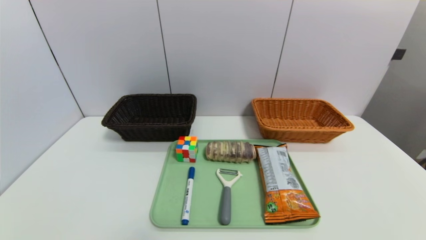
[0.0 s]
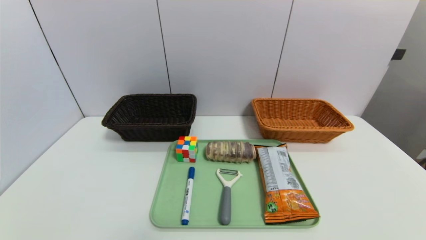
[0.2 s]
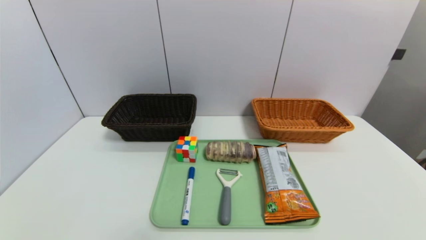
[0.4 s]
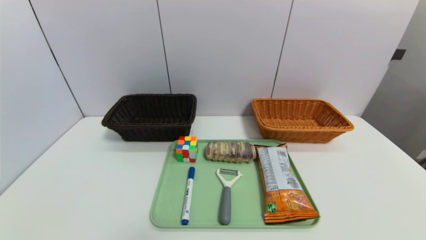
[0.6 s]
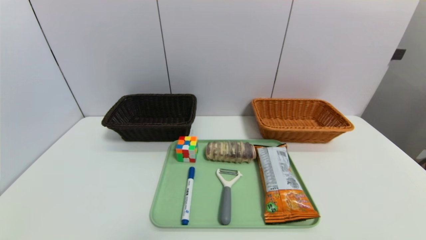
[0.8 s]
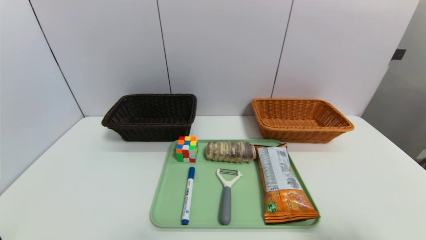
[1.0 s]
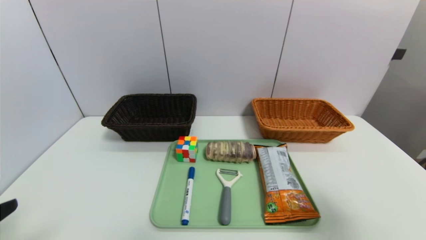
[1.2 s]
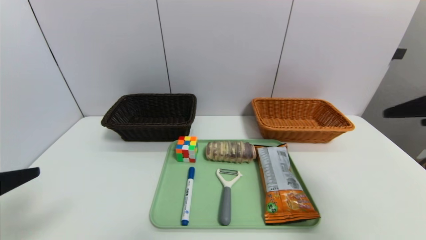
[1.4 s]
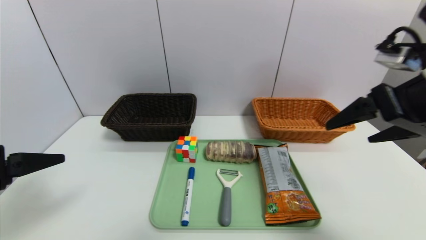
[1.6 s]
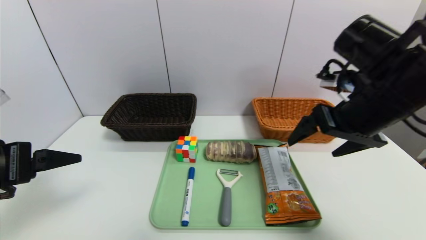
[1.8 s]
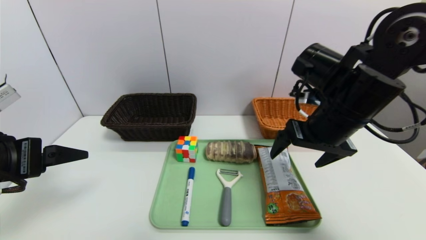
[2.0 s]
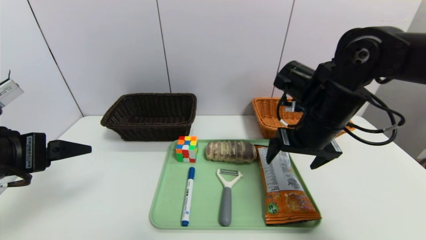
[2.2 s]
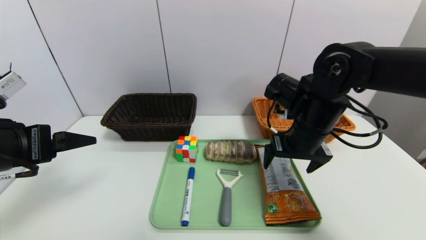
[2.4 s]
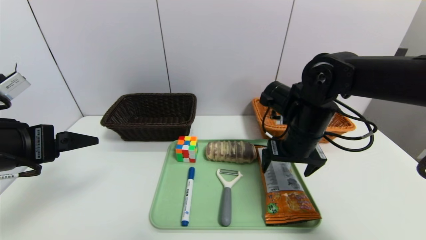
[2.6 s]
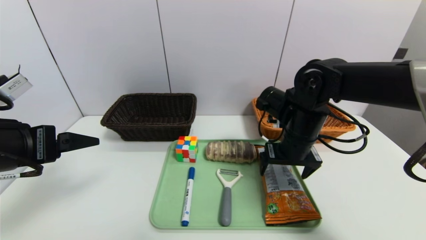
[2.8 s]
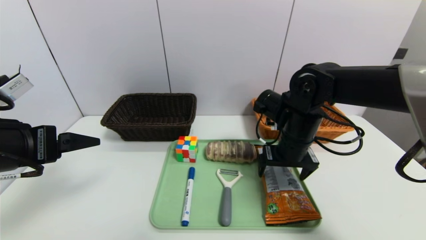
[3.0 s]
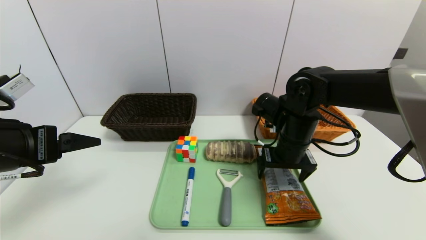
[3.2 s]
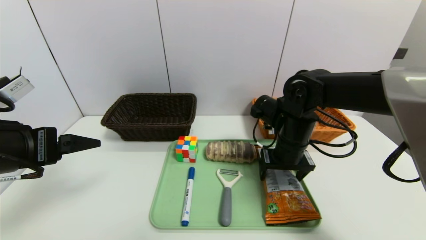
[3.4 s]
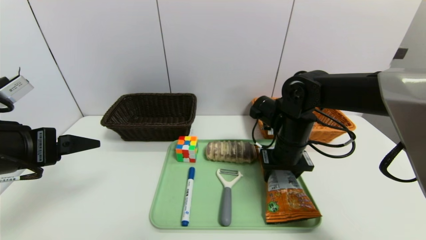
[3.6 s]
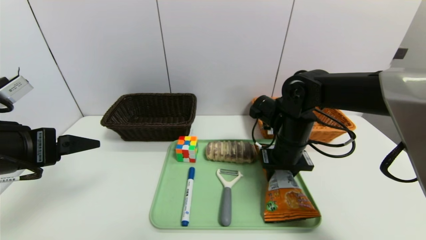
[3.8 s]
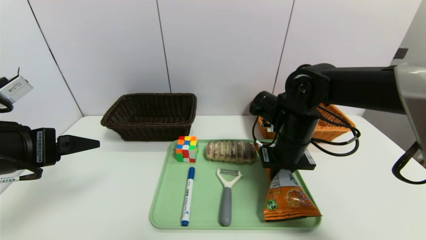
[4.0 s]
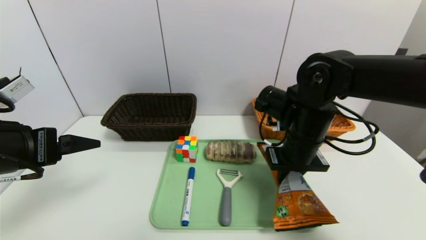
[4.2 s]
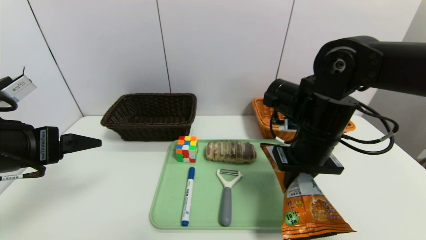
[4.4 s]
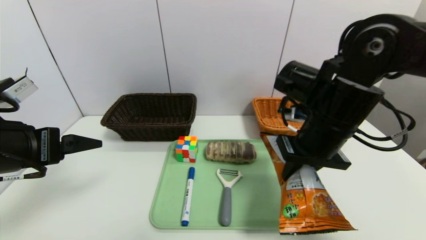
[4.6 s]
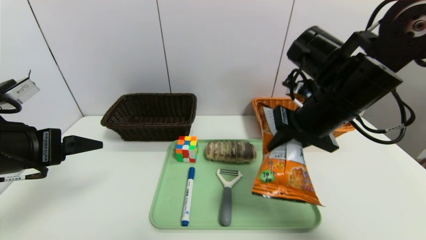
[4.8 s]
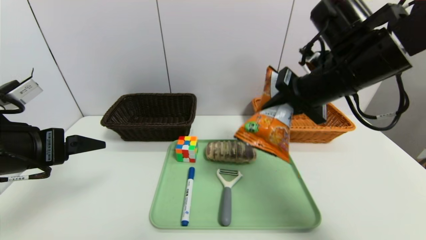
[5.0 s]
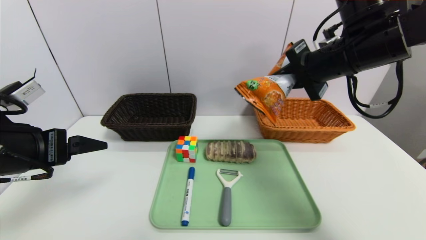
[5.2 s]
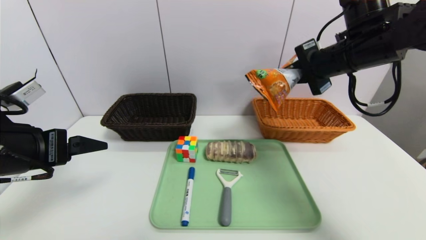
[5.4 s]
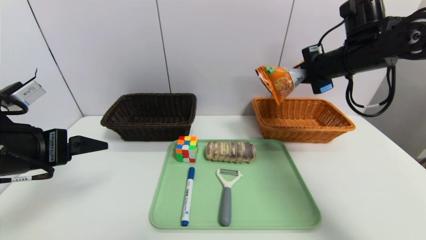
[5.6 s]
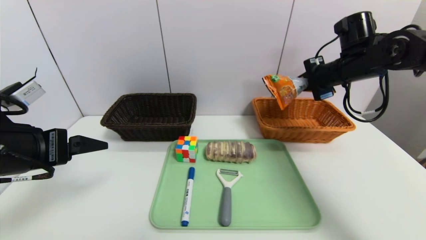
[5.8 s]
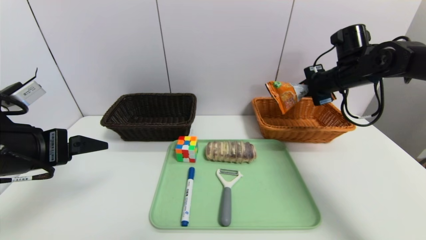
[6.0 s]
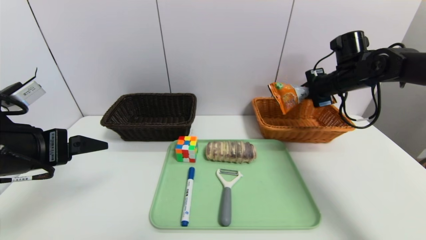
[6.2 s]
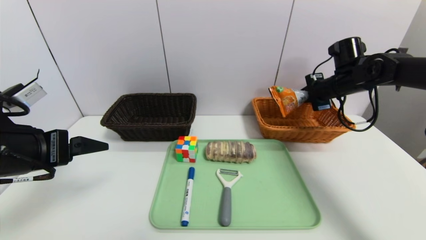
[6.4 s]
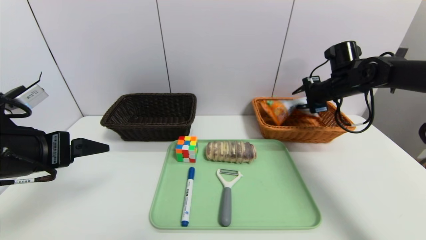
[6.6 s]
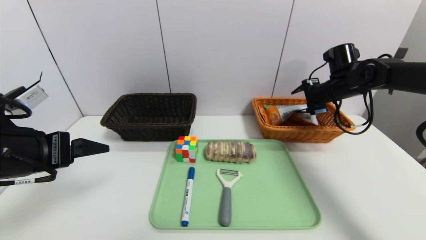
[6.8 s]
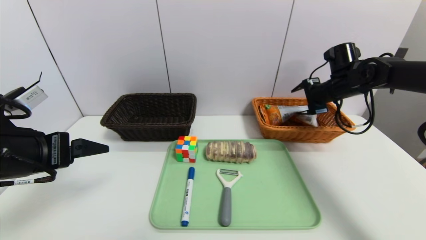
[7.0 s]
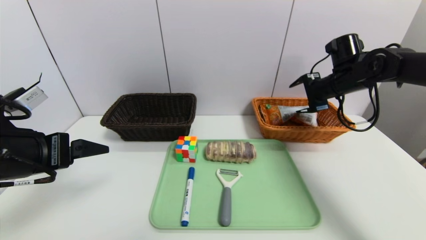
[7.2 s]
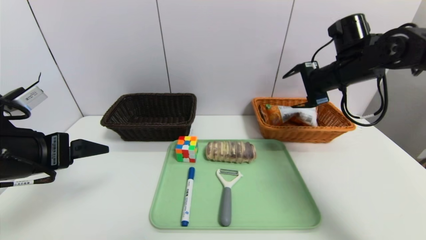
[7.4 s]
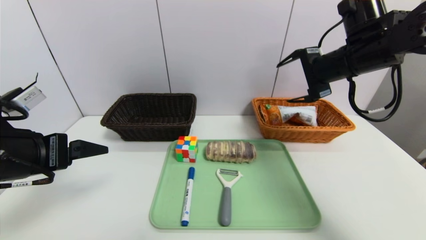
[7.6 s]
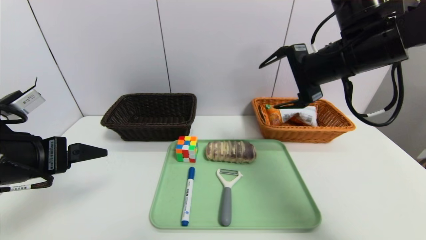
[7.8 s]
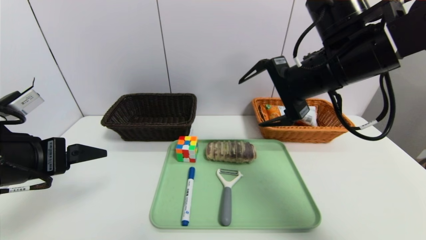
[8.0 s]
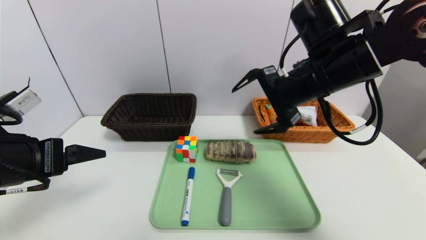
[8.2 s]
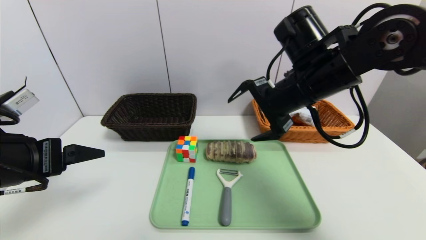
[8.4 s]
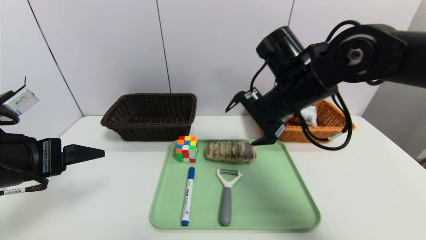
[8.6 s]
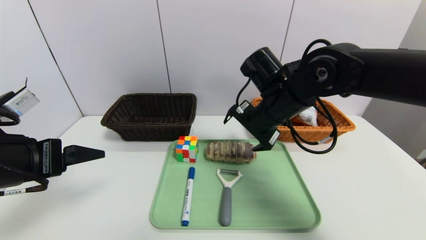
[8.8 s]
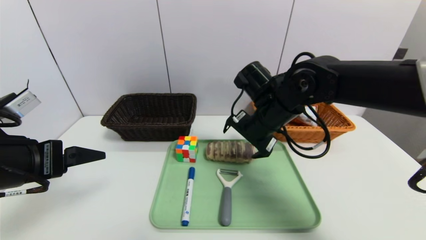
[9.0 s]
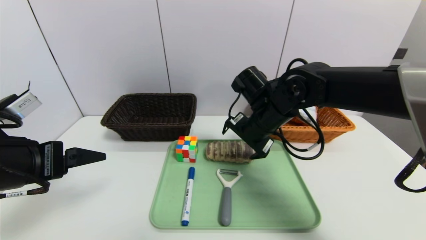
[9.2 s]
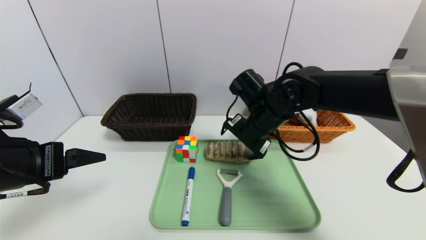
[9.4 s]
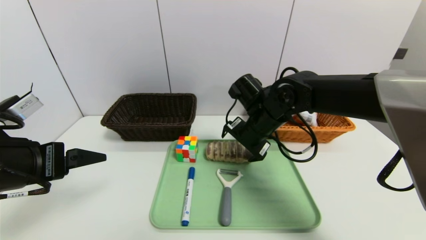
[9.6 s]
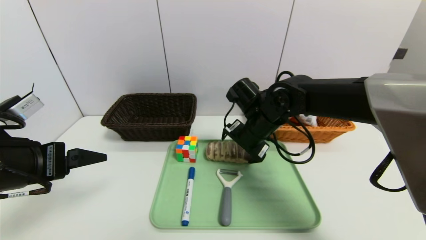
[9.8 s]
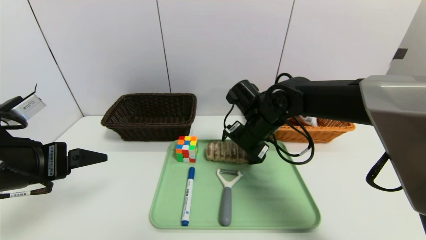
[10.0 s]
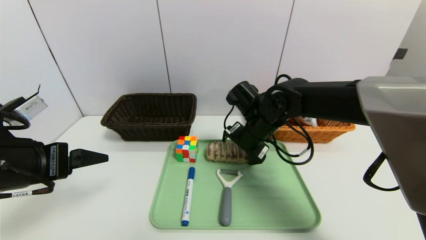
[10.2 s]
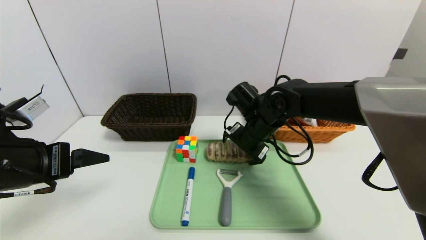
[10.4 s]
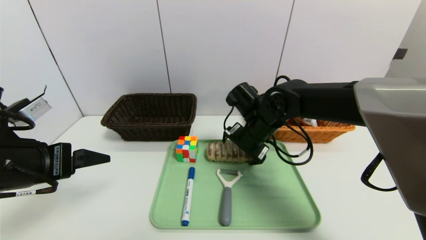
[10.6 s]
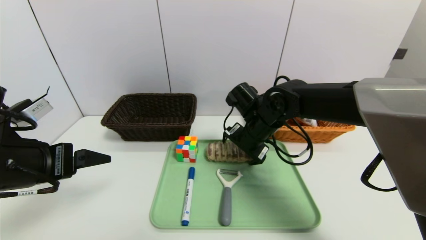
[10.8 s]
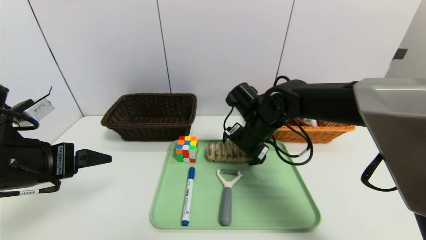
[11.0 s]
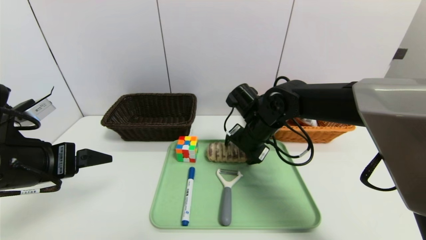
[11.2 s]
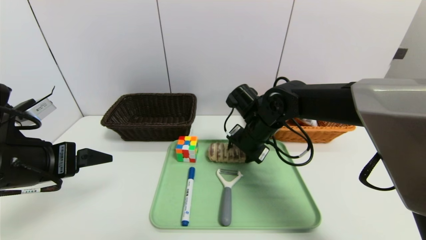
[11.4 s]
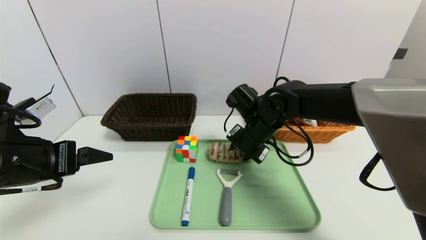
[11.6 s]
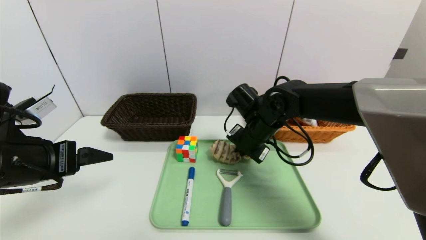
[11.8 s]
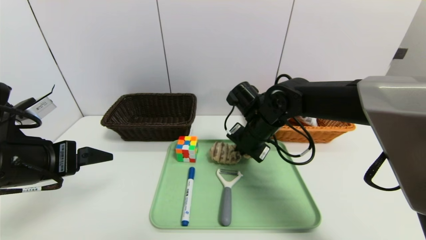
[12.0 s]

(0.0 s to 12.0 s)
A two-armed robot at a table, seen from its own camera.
Task of the whole recording: place the food in the right basket with the right gripper, and place the non food items in the left basket with the left gripper.
Step, 0.0 s - 7.2 s: Grasp the cookie and put it in the right basket.
0.0 s - 1.6 s: Both grippers move upward and forward, approximately 30 cm.
1.6 s - 3.0 s: The left gripper goes some 5 cm forward, while the right gripper moves downward, forward and to the left, approximately 20 cm.
3.0 s - 4.4 s: The right gripper moves approximately 5 cm, and closes.
4.4 s - 6.0 s: The right gripper is displaced forward and to the right by roughly 20 cm.
6.0 s - 7.6 s: The right gripper shifts about 10 cm backward, to the left and upward, and opens its fingers.
7.6 s - 9.0 s: The right gripper goes approximately 15 cm to the left and downward.
9.0 s - 10.4 s: The right gripper moves some 5 cm.
10.4 s - 12.0 s: The right gripper closes up.

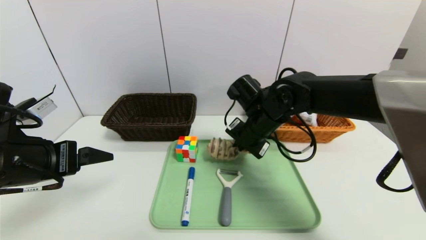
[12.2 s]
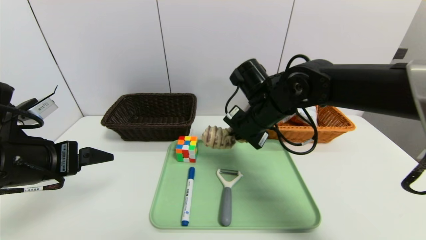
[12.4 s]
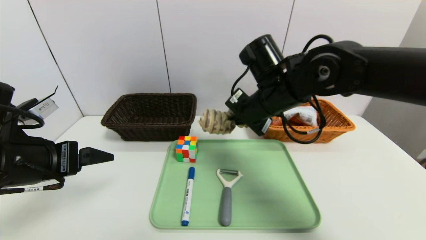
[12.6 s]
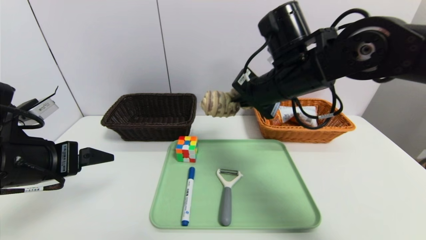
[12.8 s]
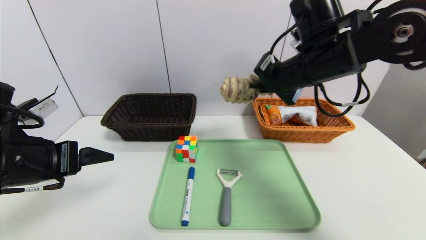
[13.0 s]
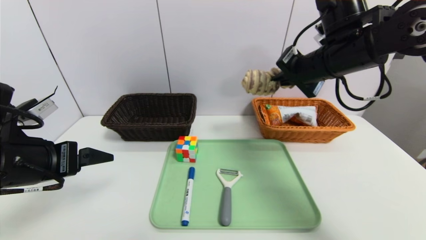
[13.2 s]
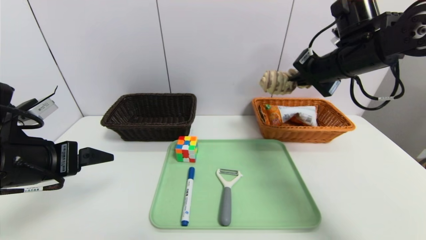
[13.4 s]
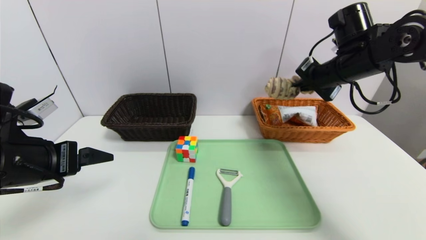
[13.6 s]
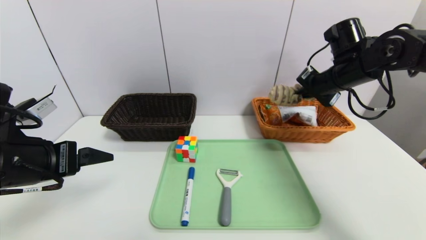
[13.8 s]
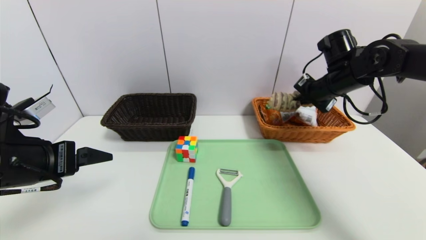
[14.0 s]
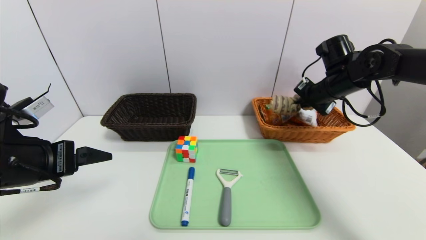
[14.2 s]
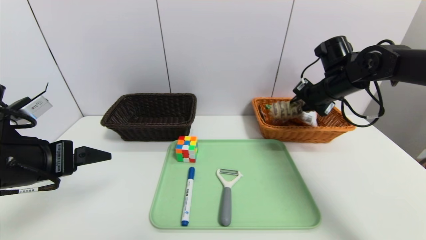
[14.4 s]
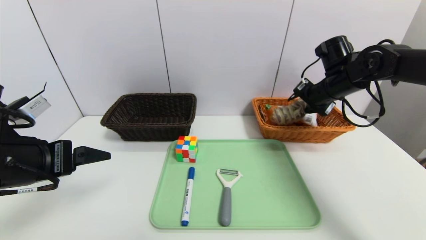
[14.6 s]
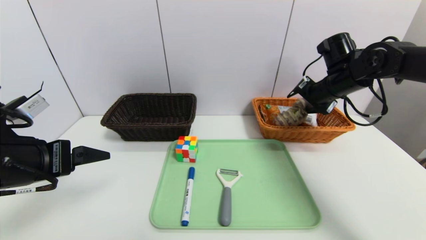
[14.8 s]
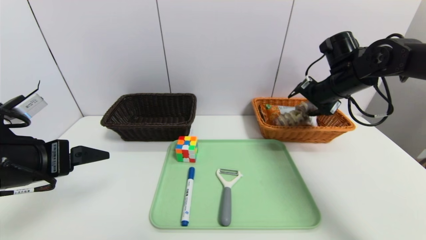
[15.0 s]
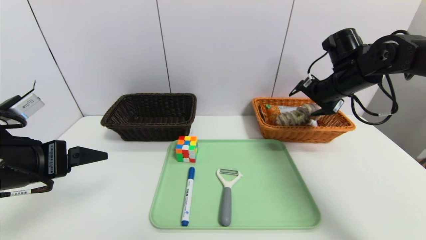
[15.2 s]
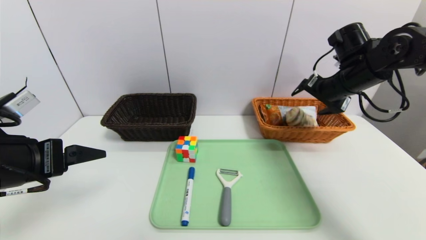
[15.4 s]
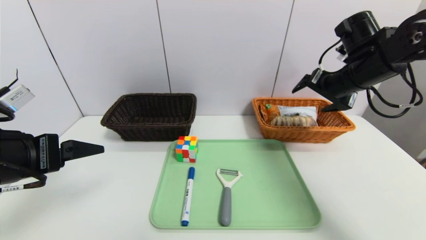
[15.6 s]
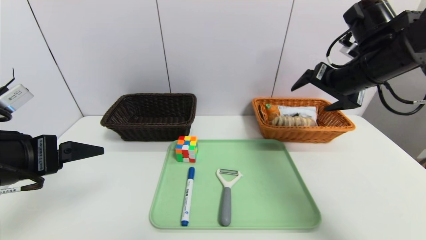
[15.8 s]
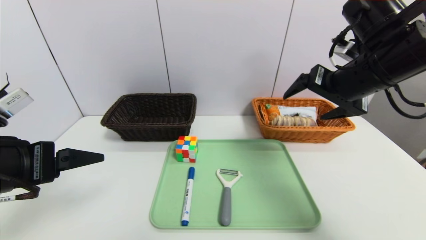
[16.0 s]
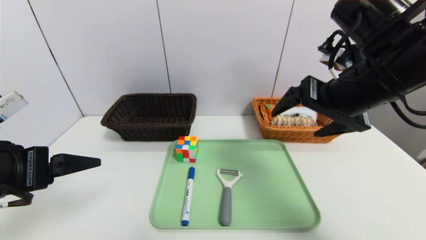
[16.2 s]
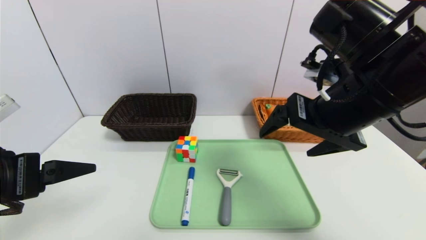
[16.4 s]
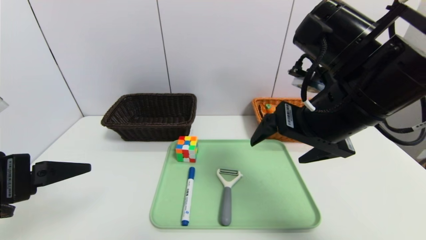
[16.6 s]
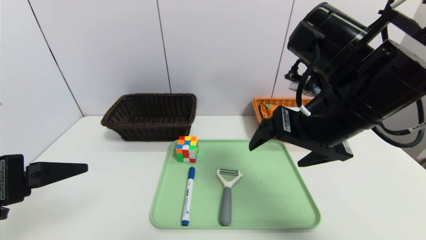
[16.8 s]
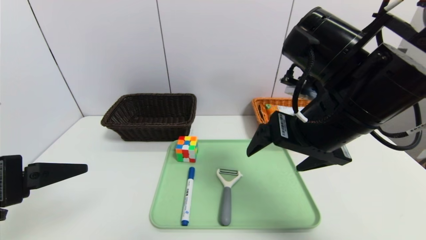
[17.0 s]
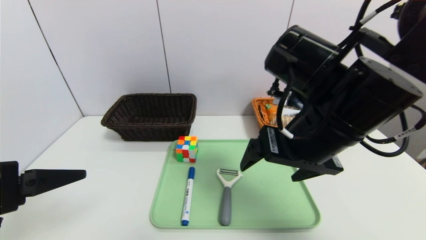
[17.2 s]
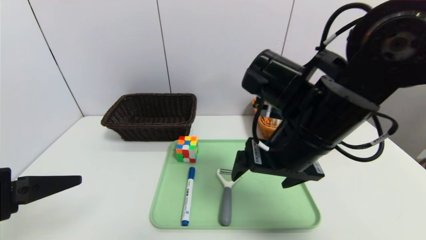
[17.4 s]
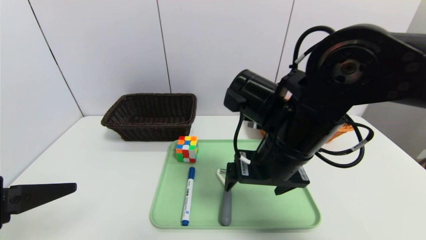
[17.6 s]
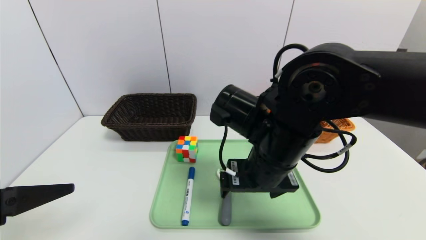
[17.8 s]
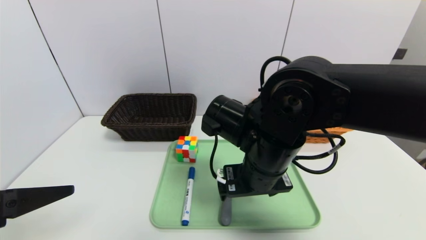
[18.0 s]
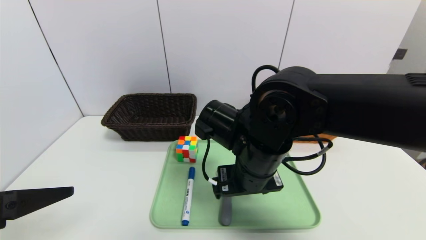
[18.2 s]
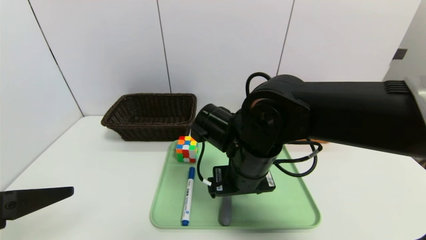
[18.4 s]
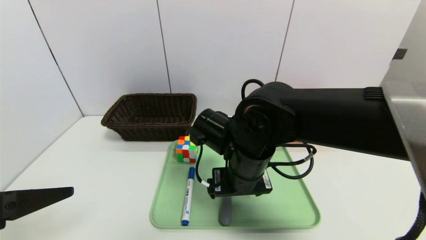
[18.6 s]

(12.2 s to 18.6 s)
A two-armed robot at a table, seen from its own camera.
Task of the whole recording: place the food in the right basket with the right gripper, and place the non food items in the left basket with the left gripper.
Step, 12.2 s - 15.4 s: Grasp the long bread and put it in the right basket.
12.2 s - 13.8 s: The right gripper is displaced to the right and upward by roughly 20 cm.
13.8 s - 15.4 s: The right gripper opens its fingers.
15.4 s - 17.0 s: The right gripper travels backward and to the left by approximately 20 cm. Meanwhile the left gripper goes approximately 5 cm backward.
17.0 s - 18.6 s: The right gripper shifts some 15 cm downward and to the left.
